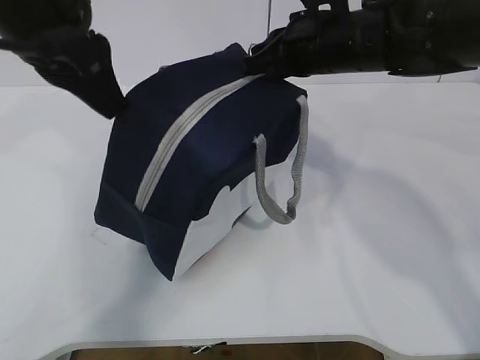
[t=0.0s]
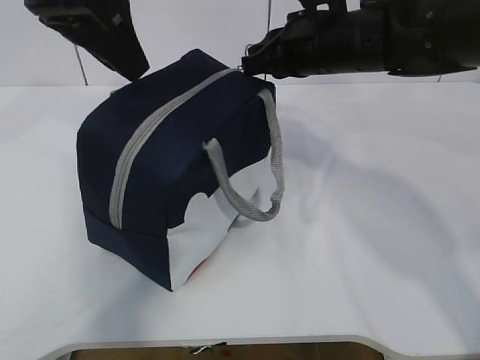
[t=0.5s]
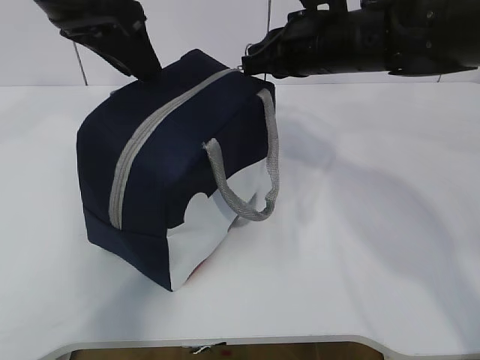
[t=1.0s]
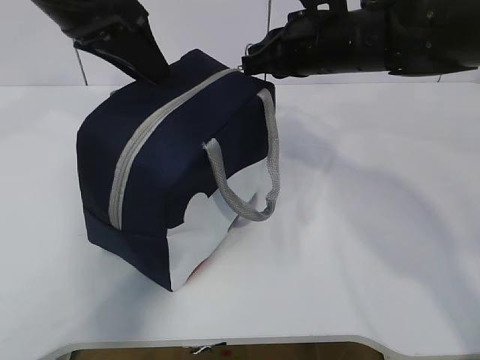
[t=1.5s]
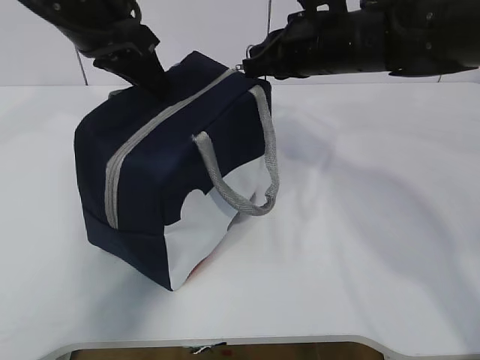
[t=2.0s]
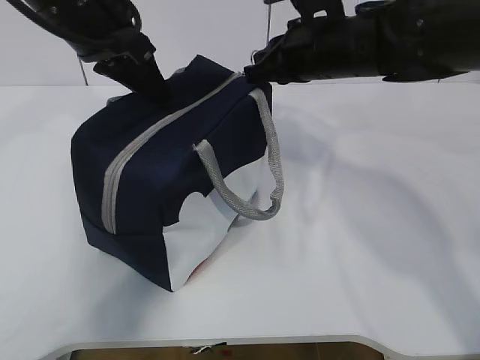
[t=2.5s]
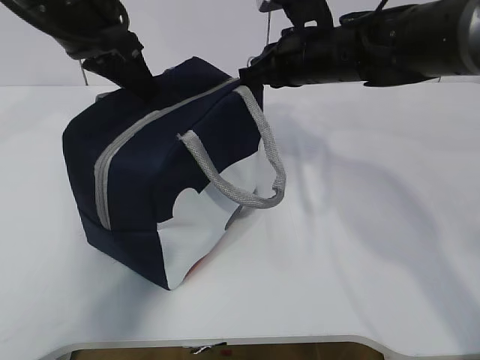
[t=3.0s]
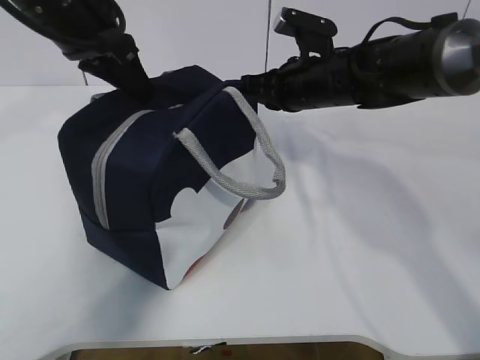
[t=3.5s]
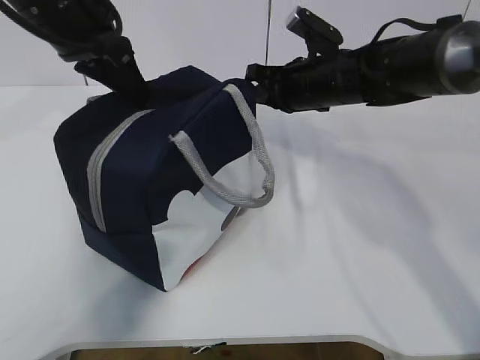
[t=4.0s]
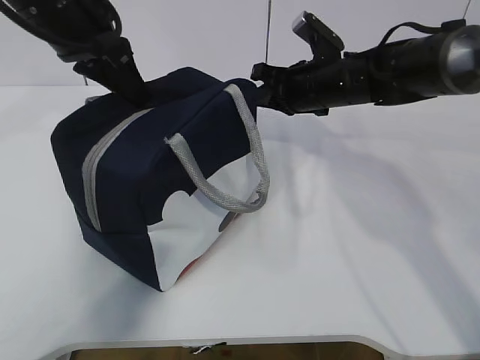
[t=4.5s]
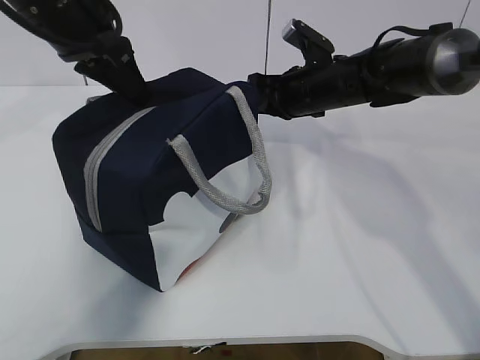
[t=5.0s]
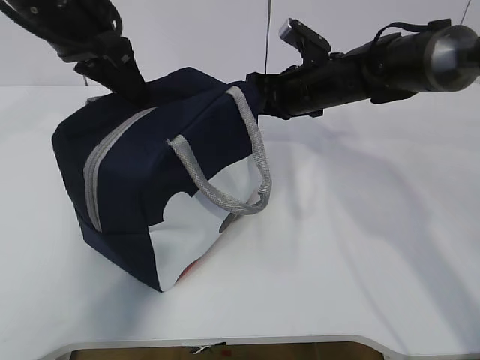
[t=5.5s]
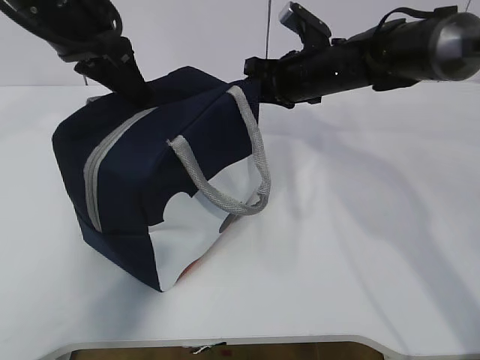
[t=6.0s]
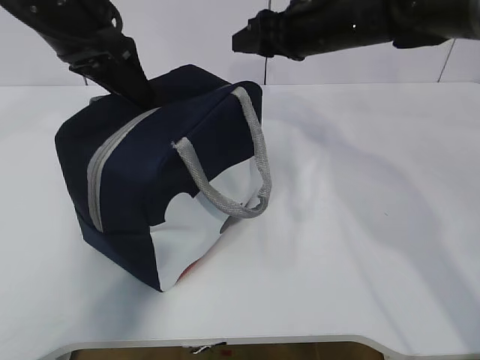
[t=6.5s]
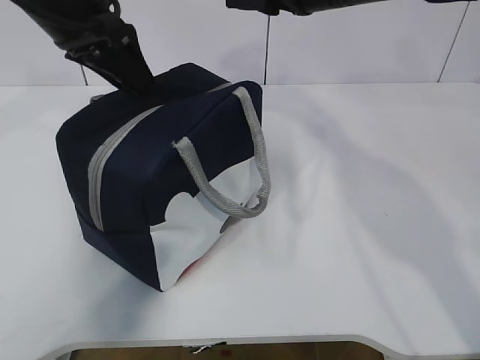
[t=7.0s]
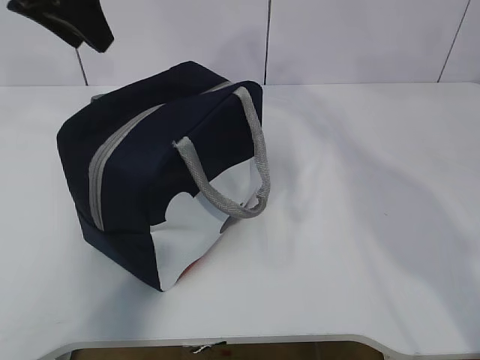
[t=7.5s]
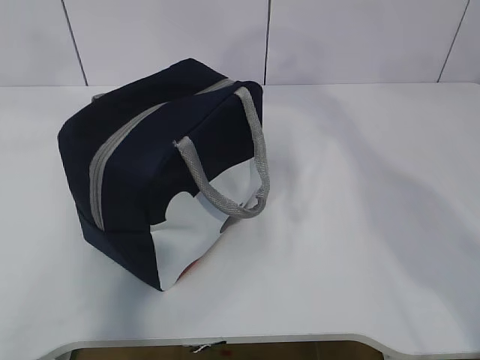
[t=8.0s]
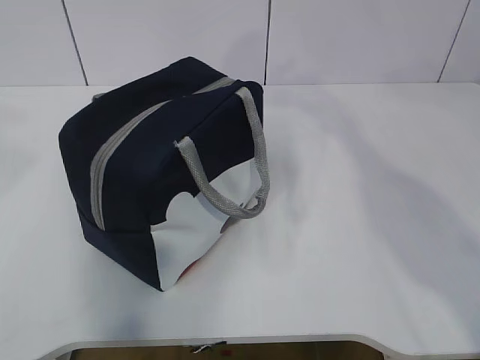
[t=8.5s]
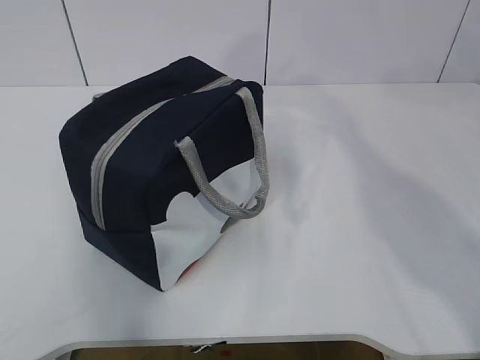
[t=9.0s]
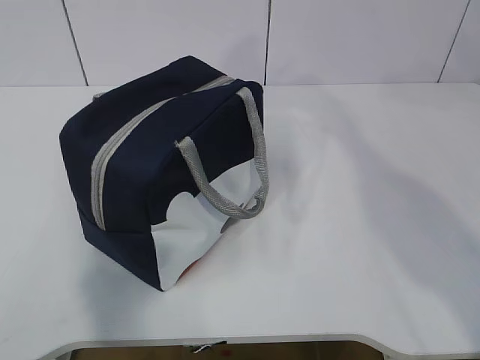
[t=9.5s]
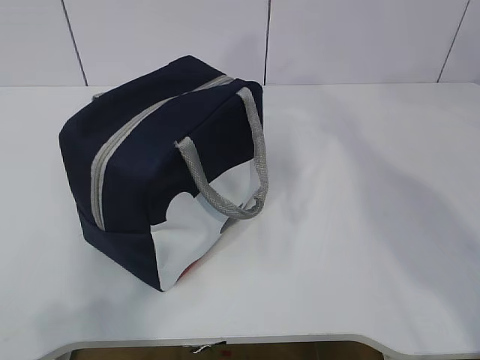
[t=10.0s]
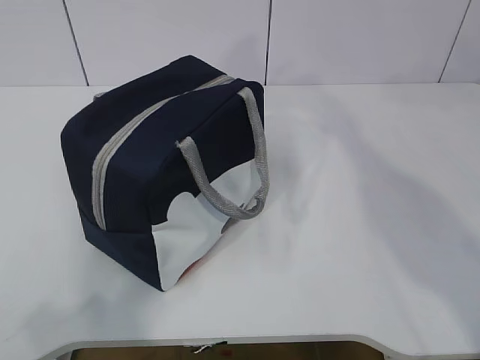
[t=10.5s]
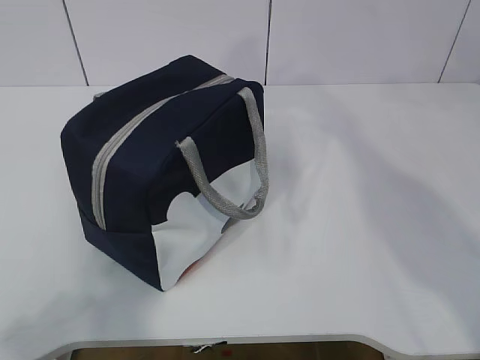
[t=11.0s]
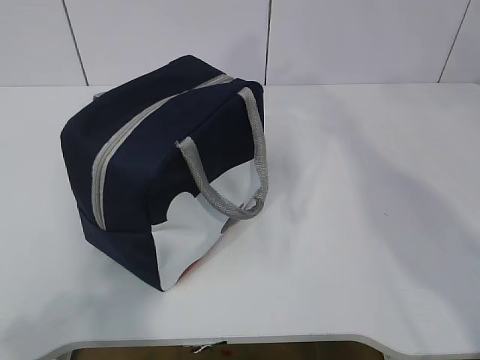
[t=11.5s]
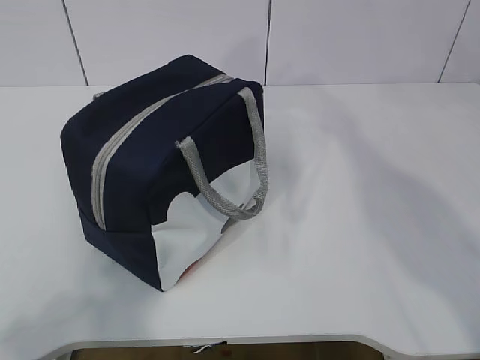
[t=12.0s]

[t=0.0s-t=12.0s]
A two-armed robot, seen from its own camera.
Step, t=0.0s to t=7.0s: zip up the zipper to close the bag.
t=0.0s to t=2.0s: The left gripper is displaced forward by about 10 cm, and closes up.
t=2.0s to t=4.0s: The right gripper travels downward and forward by approximately 10 cm.
t=4.0s to t=6.0s: The right gripper opens.
t=6.0s to t=8.0s: Both grippers travel together upward and backward, some 20 cm. The left gripper opens its fingers.
t=8.0s to t=10.0s: The left gripper is displaced backward and downward by approximately 35 cm.

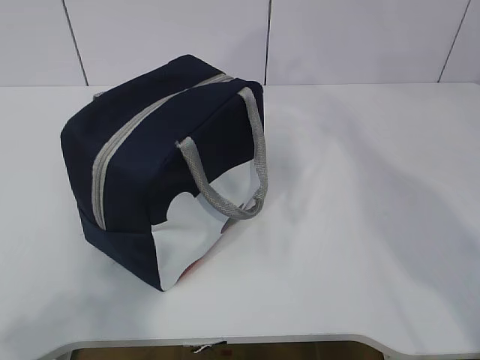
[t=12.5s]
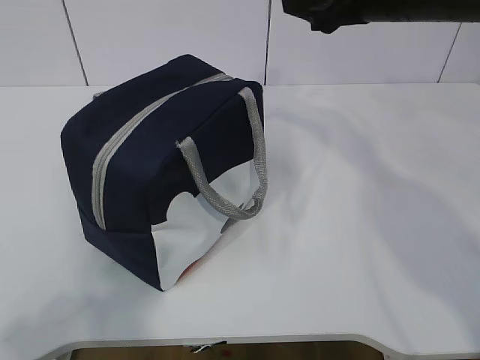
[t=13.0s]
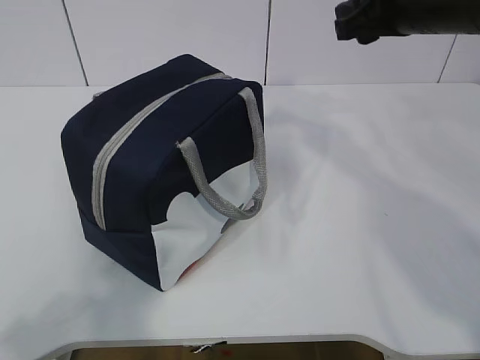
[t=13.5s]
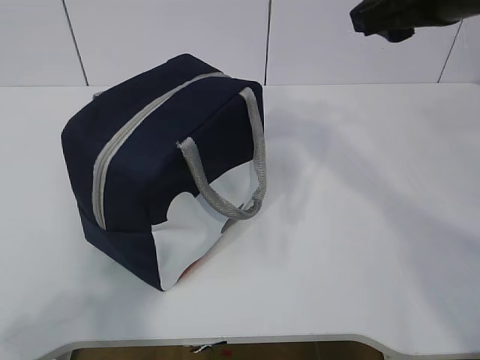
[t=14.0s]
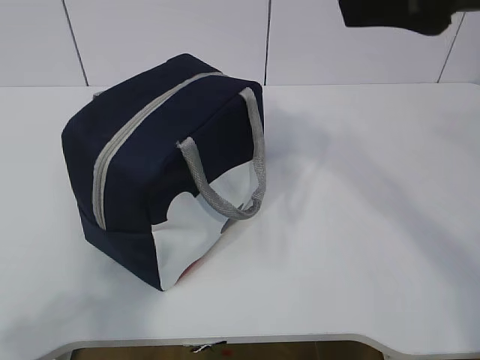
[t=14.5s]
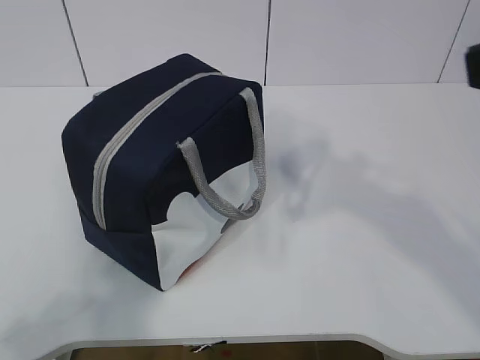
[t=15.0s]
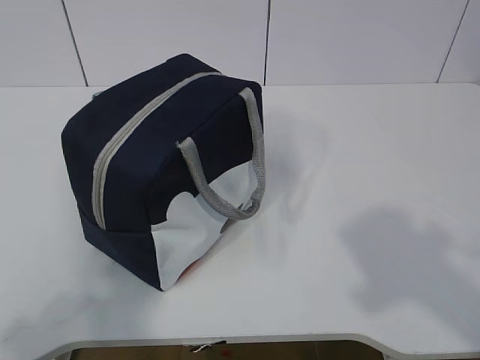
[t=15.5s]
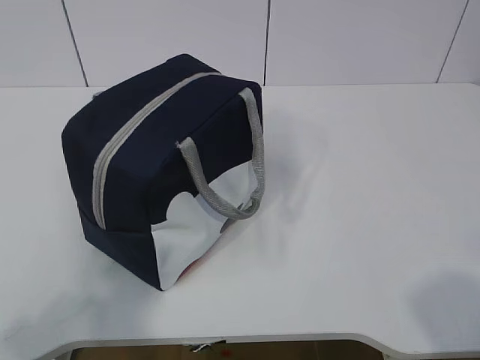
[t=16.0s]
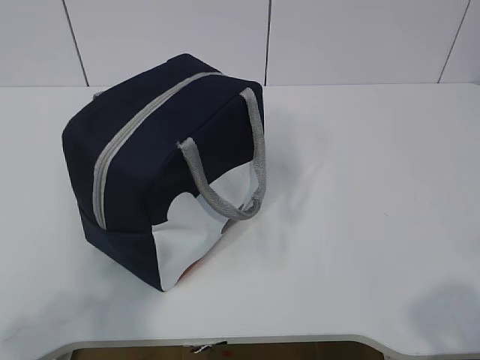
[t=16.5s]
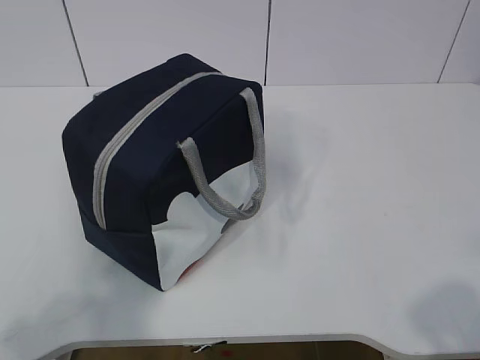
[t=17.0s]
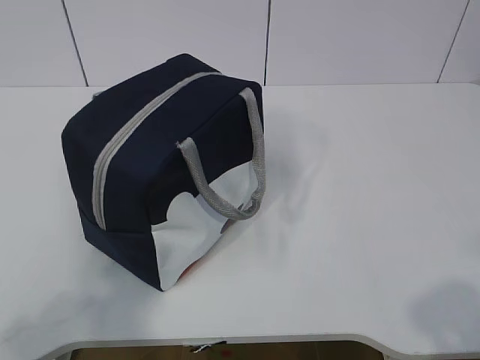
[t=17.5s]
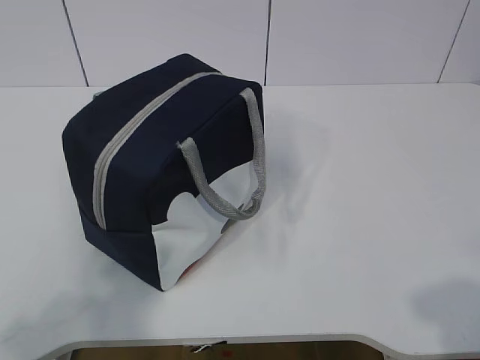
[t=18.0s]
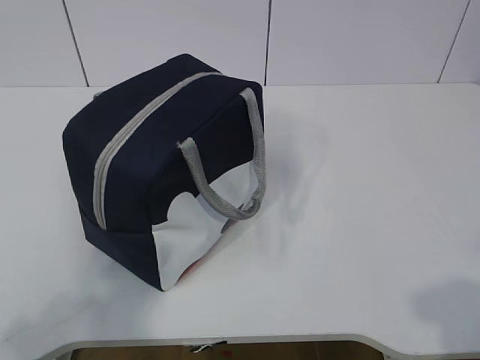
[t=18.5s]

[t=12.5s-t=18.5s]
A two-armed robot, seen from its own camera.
t=12.5s to t=14.5s: The right gripper goes some 15 cm backward.
t=14.5s to t=16.5s: The right gripper goes roughly 30 cm backward, downward and to the right.

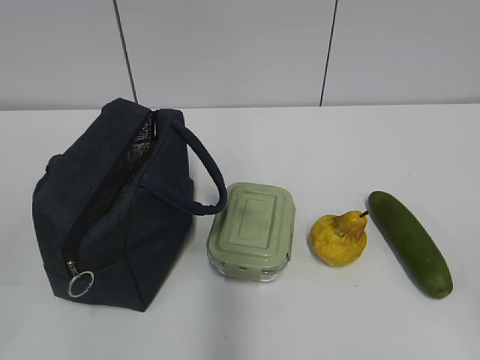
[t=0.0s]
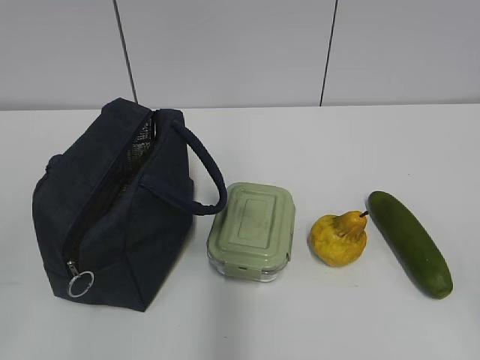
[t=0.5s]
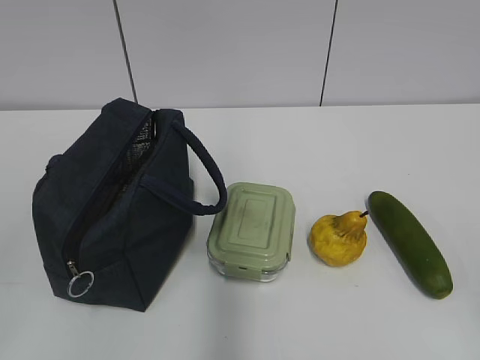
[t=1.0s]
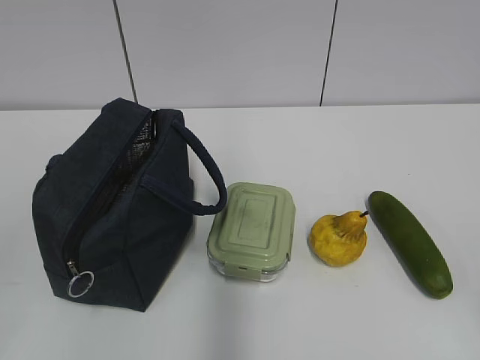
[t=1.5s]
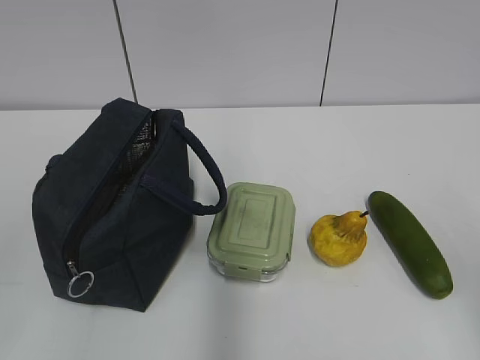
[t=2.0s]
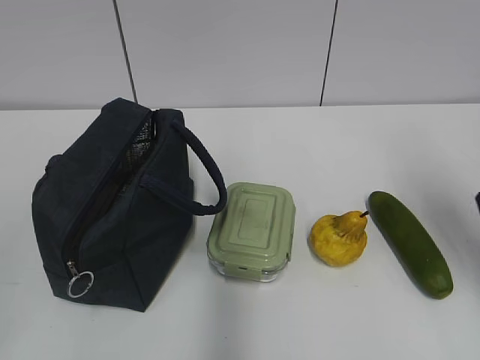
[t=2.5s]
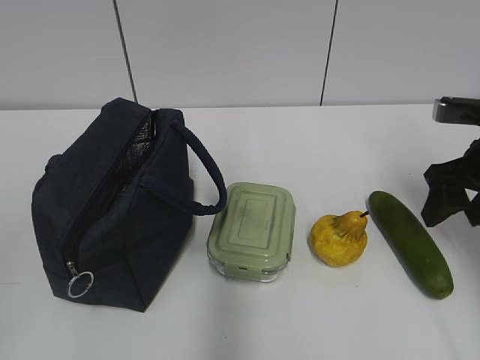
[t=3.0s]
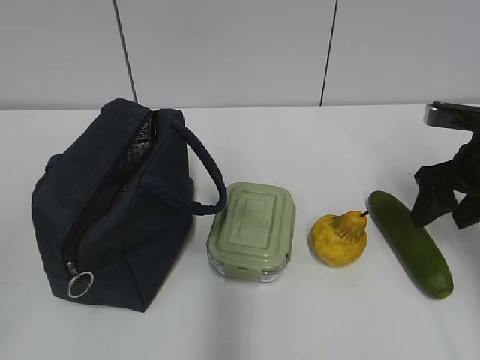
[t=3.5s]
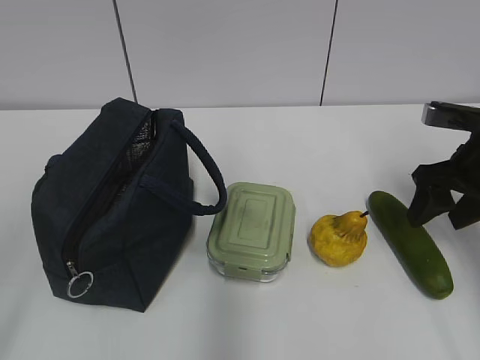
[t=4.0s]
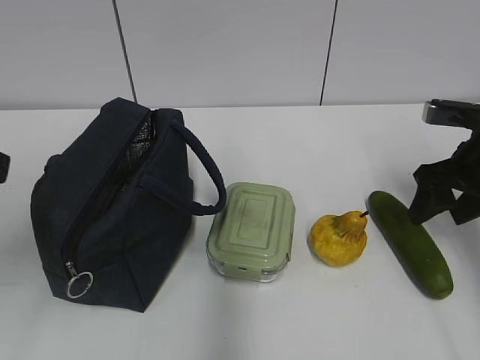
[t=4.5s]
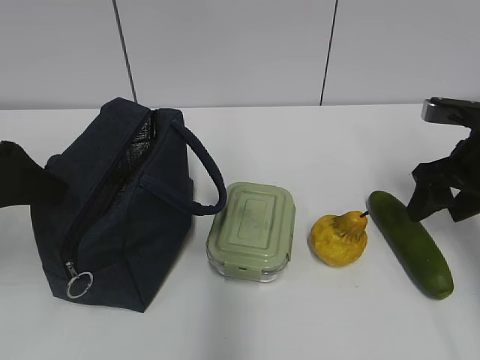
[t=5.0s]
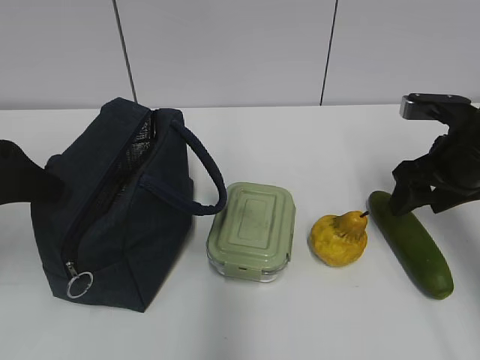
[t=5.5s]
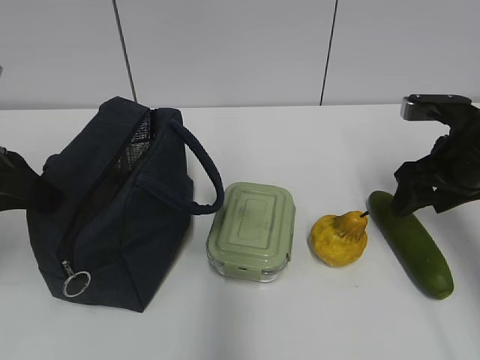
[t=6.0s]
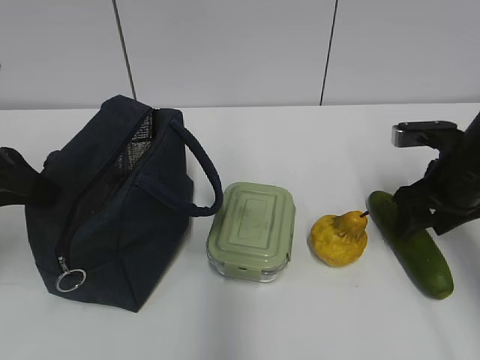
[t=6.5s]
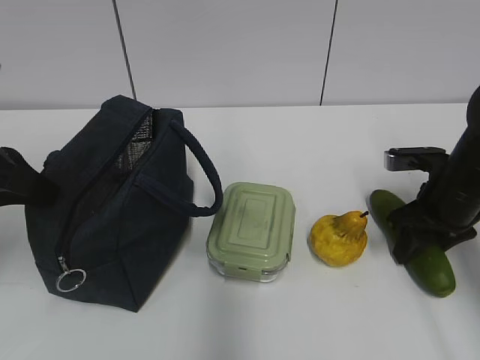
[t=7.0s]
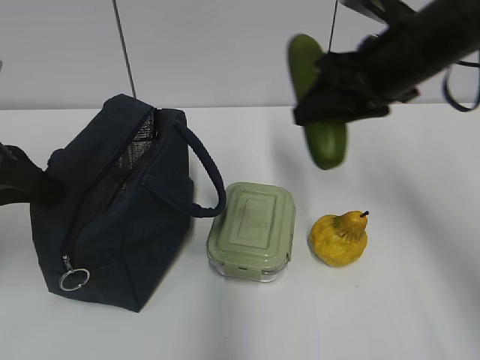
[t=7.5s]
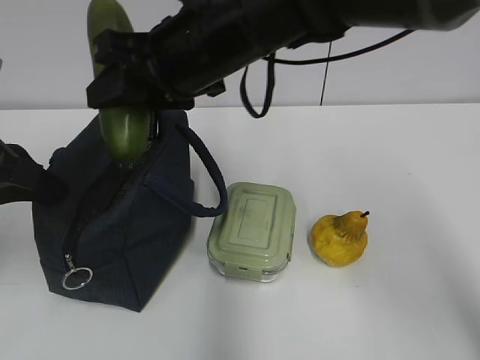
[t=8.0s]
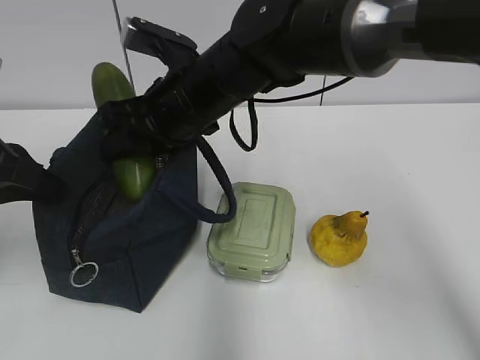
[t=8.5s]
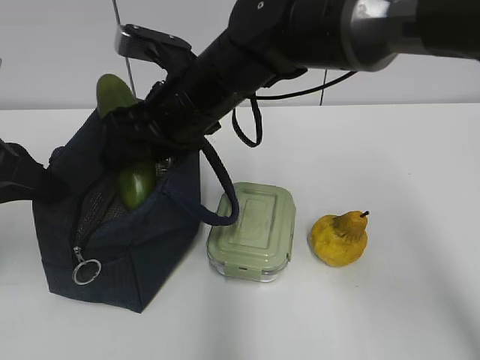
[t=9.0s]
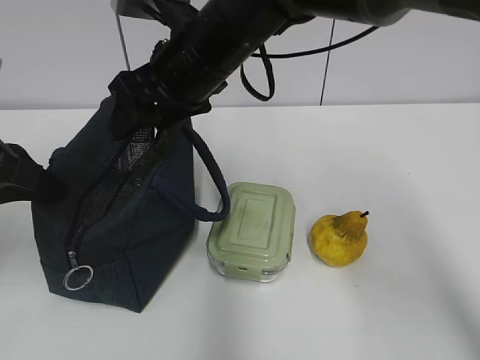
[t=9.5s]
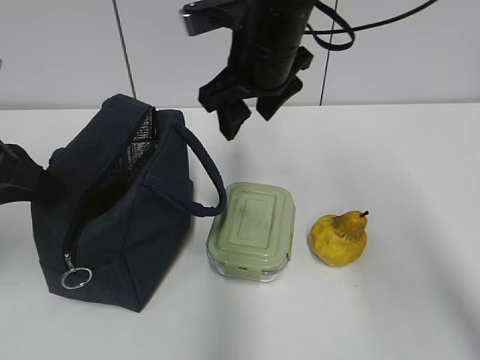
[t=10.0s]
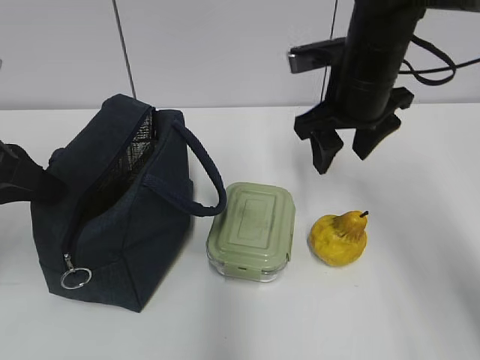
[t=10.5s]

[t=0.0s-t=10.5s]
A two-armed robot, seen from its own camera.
Step, t=0.0s to t=6.5s: Grab the cucumber with your right hand.
Step, t=8.5s to t=9.0s: Place it into the bag with your right hand.
t=2.0s to t=4.0s: The right gripper travels forward by approximately 30 cm.
t=4.0s to t=6.5s: The left gripper travels forward by some 20 cm, and closes up.
t=6.5s to t=8.5s: The right gripper heads to the left, covering about 30 cm.
t=8.5s to t=10.5s: The right gripper shifts some 15 cm to the right.
